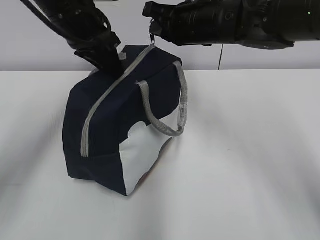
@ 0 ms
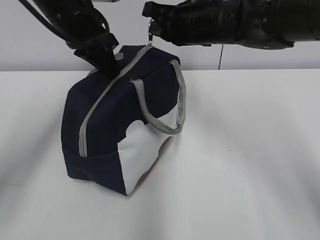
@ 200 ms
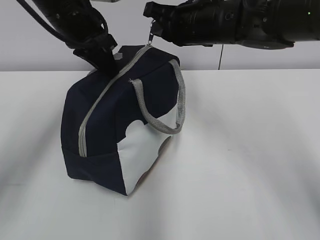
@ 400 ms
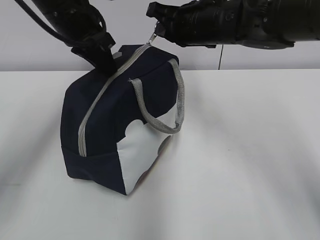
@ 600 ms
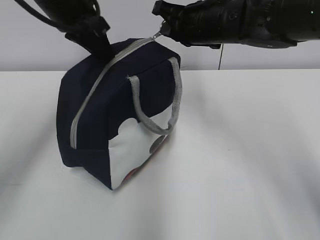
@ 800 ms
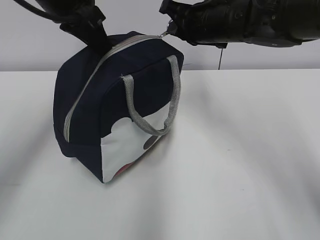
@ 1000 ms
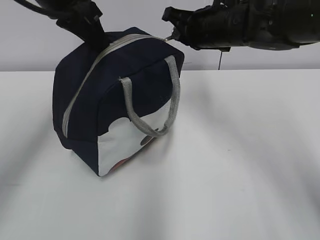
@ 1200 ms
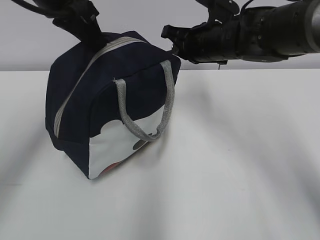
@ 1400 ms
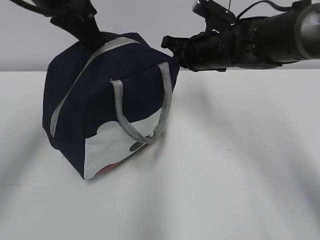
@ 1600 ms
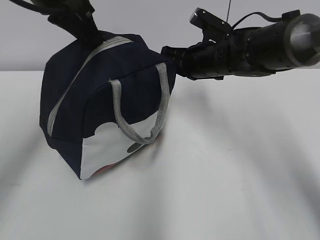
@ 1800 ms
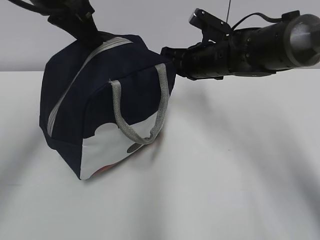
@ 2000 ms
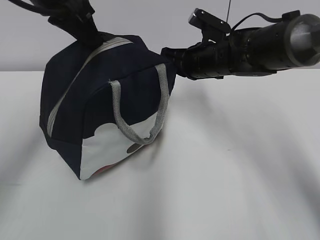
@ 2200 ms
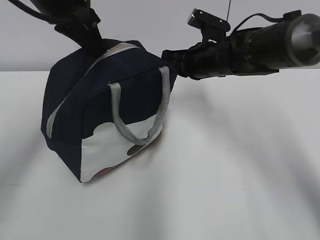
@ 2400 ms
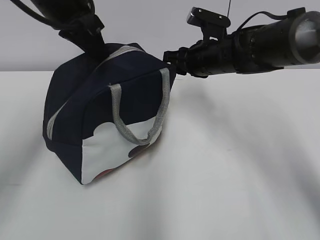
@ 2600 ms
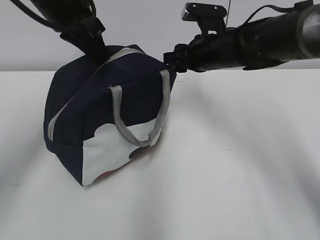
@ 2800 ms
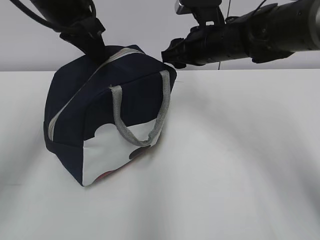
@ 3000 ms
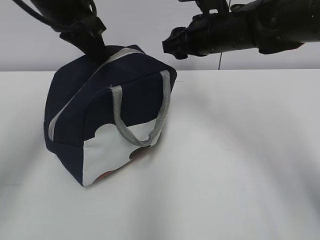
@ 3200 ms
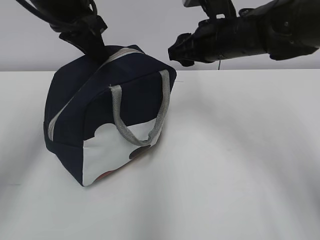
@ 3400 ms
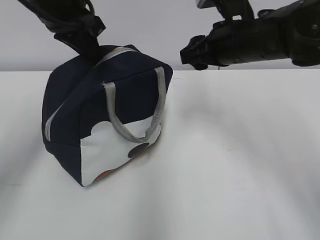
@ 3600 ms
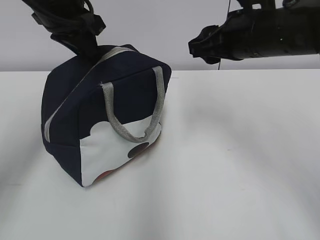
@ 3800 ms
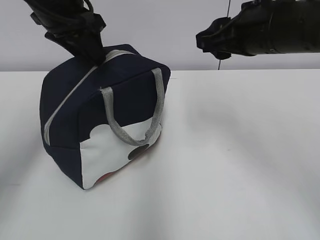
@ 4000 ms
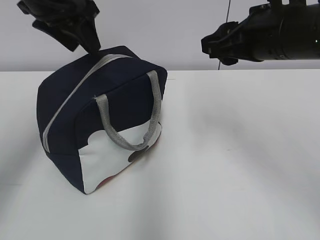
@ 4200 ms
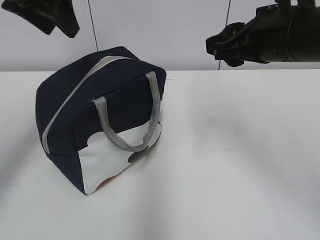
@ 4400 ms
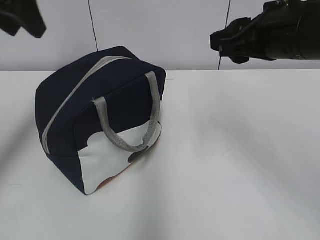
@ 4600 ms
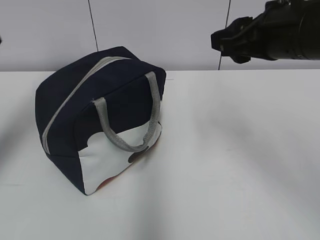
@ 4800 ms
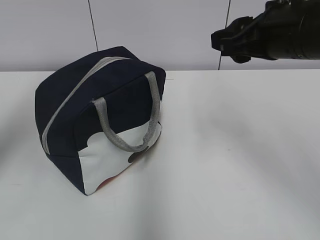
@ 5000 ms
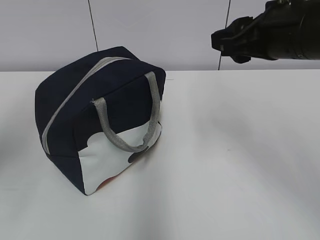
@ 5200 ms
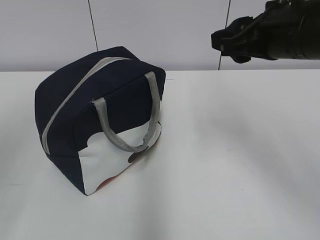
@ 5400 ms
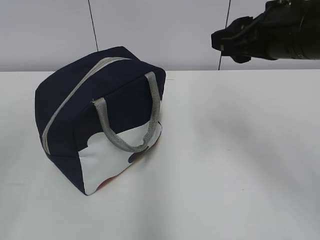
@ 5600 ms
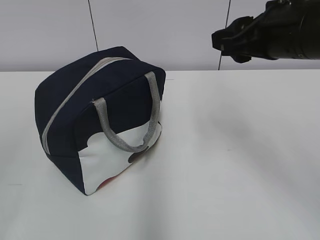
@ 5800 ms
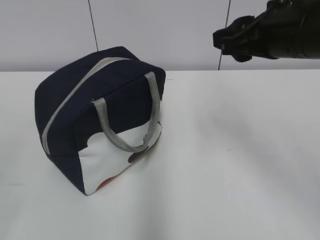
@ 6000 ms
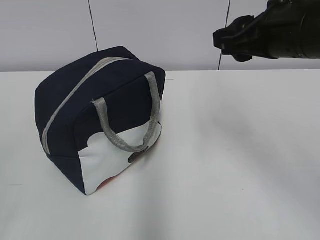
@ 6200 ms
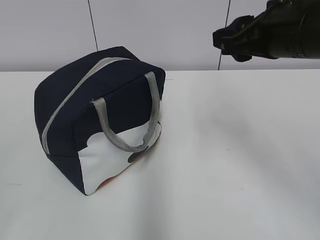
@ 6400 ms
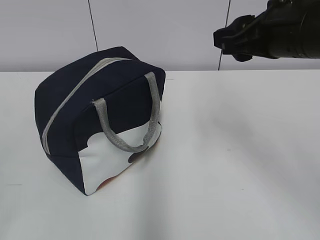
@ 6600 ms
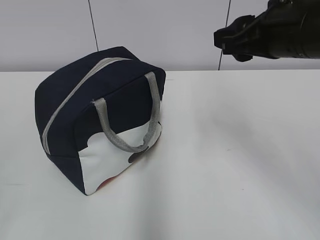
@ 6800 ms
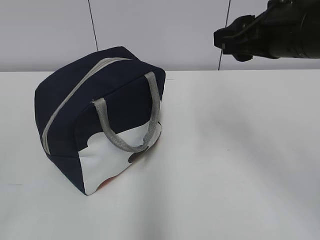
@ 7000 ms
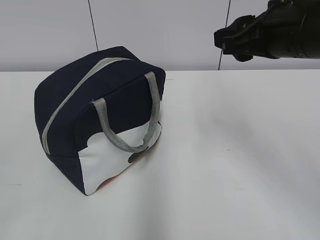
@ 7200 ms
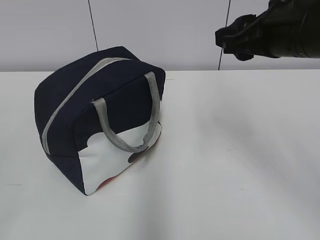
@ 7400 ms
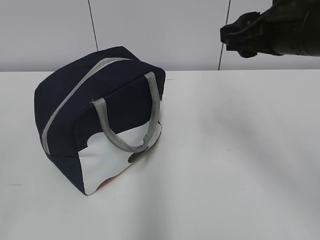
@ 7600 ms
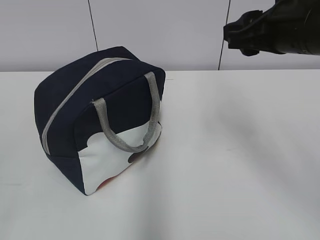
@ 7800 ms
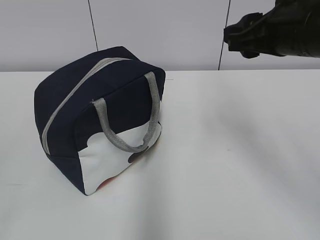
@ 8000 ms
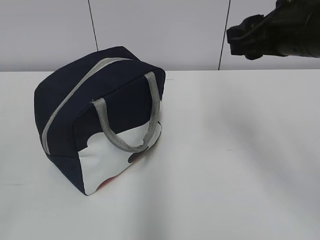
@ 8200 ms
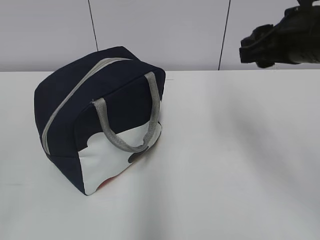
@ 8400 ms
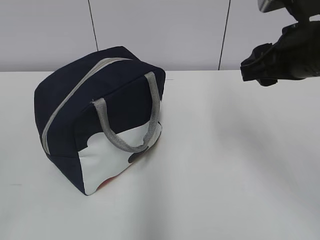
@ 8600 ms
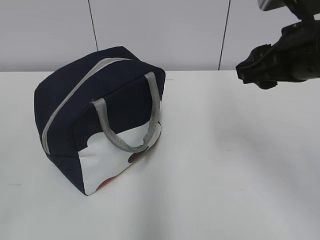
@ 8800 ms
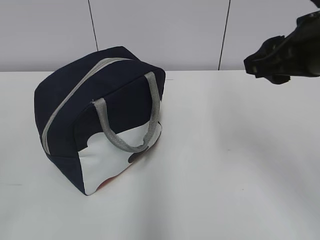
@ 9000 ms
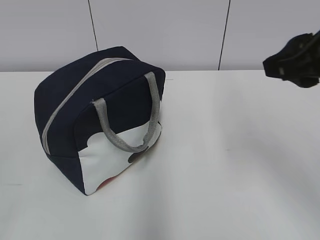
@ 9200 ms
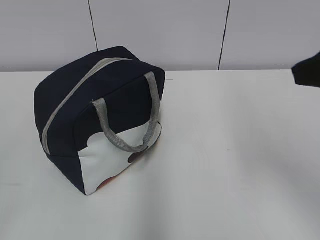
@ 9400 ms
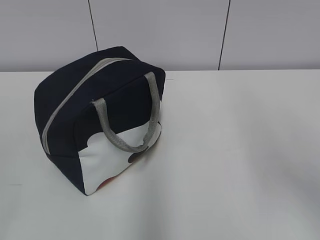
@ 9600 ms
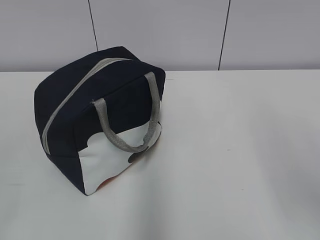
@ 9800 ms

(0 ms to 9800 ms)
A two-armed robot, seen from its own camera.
0 ms - 1400 ms: The right gripper changes place by about 5 cm. The left gripper is displaced upward by roughly 5 cm, and closes up.
1400 ms - 2800 ms: The right gripper opens up.
2800 ms - 4200 ms: The right gripper travels backward and upward by about 15 cm, while the left gripper opens its fingers.
4200 ms - 5600 ms: The left gripper heads backward and to the left, covering some 30 cm.
7000 ms - 8400 ms: The grippers make only small movements.
8400 ms - 9800 ms: The right gripper goes some 20 cm backward.

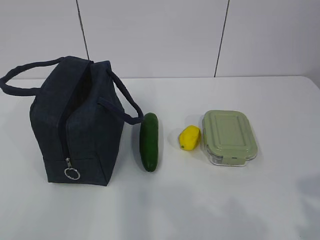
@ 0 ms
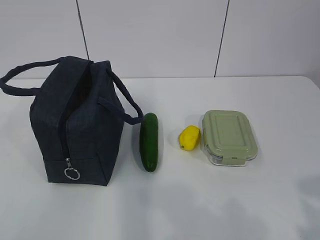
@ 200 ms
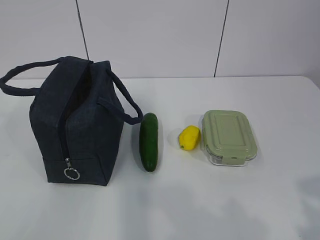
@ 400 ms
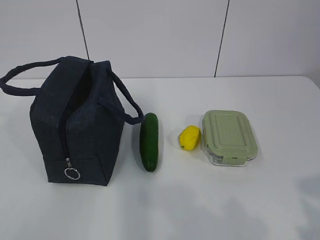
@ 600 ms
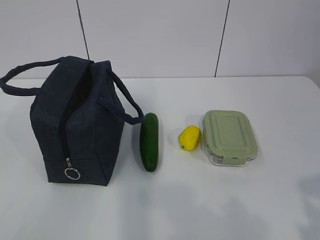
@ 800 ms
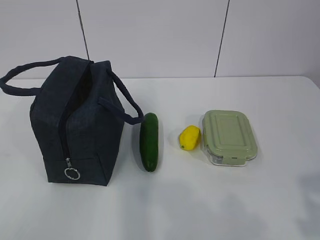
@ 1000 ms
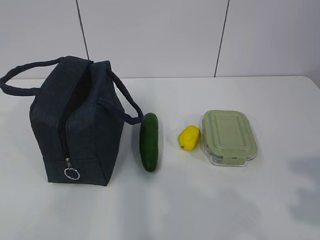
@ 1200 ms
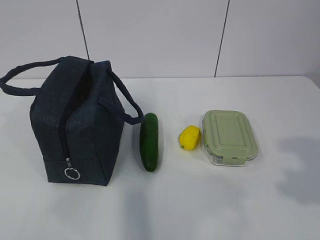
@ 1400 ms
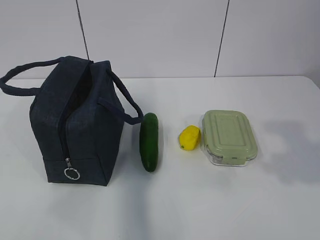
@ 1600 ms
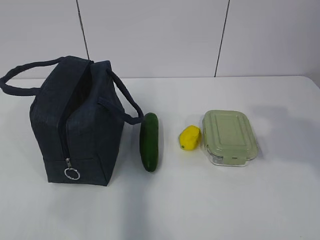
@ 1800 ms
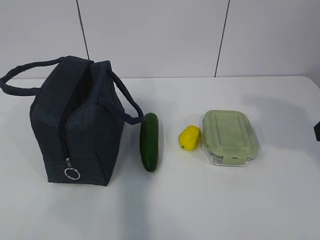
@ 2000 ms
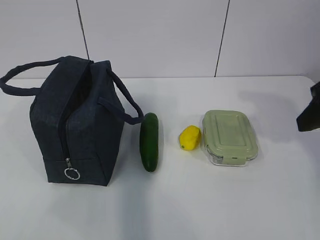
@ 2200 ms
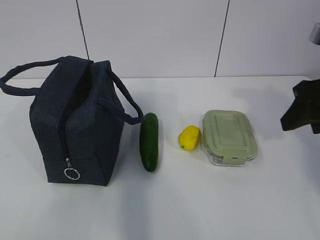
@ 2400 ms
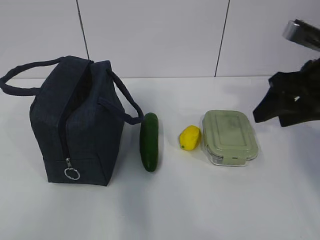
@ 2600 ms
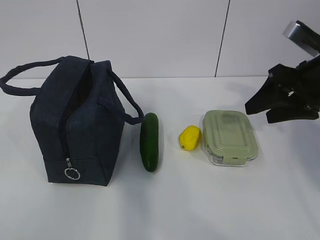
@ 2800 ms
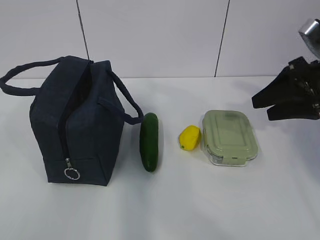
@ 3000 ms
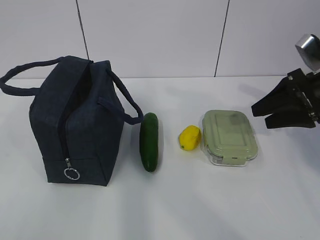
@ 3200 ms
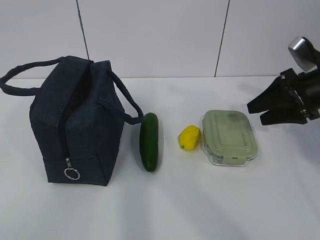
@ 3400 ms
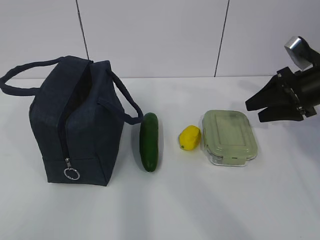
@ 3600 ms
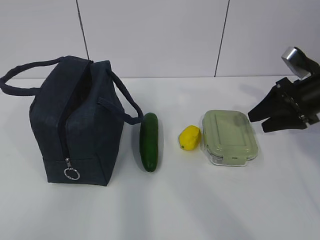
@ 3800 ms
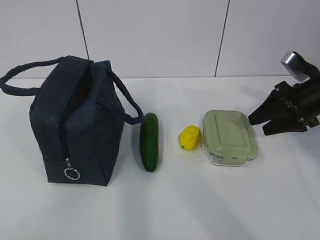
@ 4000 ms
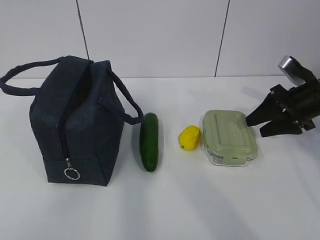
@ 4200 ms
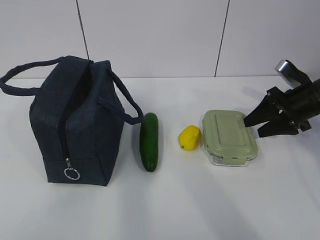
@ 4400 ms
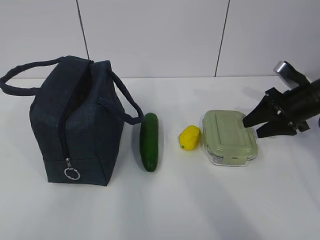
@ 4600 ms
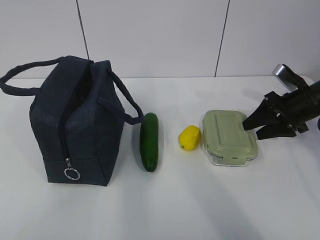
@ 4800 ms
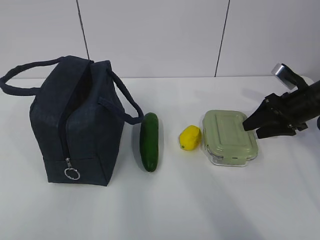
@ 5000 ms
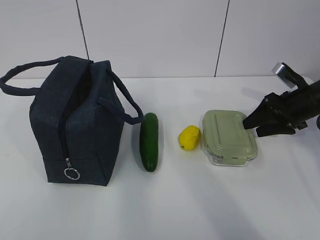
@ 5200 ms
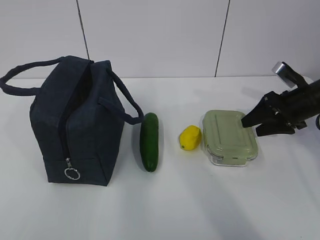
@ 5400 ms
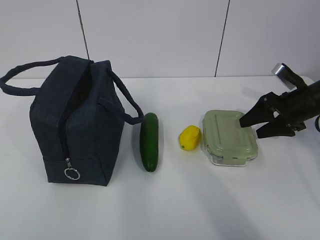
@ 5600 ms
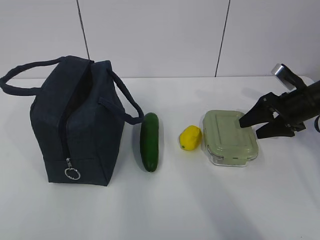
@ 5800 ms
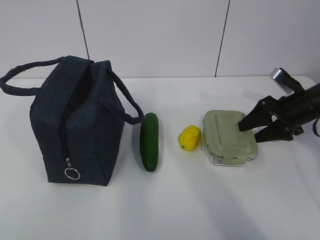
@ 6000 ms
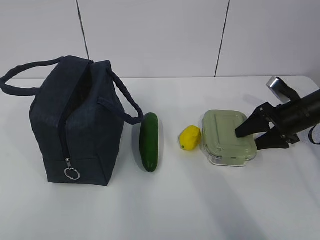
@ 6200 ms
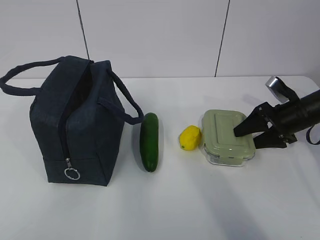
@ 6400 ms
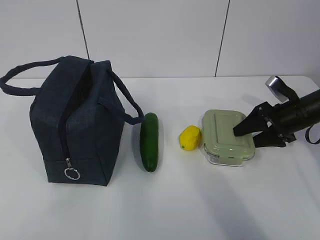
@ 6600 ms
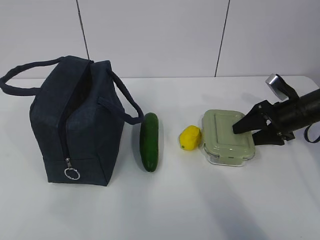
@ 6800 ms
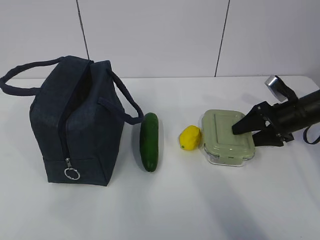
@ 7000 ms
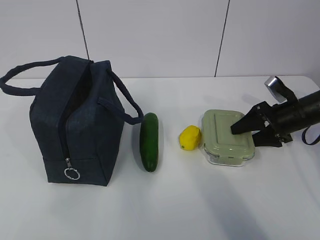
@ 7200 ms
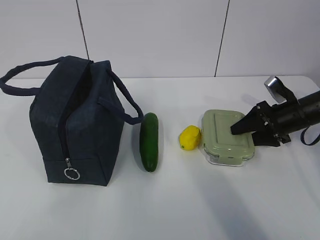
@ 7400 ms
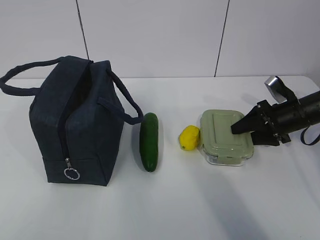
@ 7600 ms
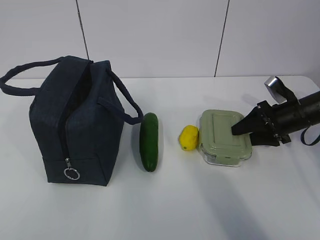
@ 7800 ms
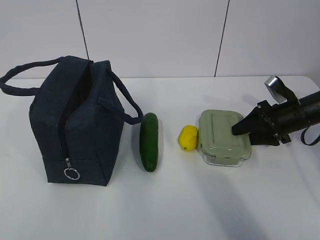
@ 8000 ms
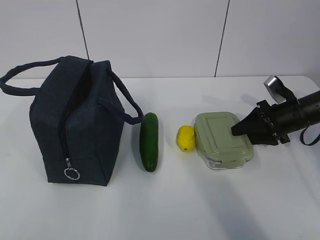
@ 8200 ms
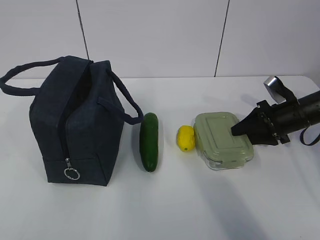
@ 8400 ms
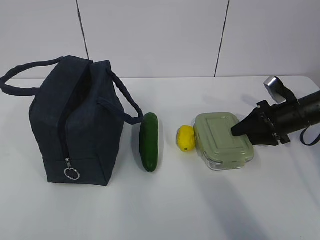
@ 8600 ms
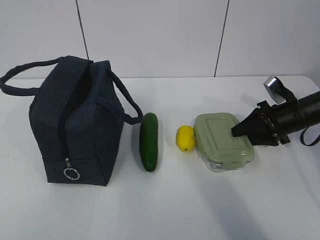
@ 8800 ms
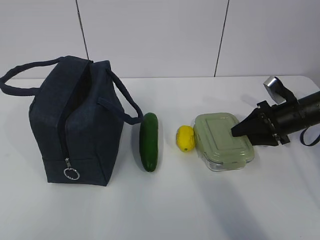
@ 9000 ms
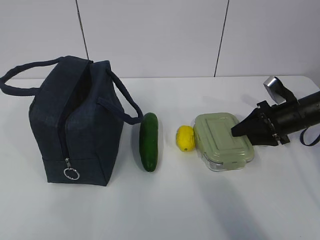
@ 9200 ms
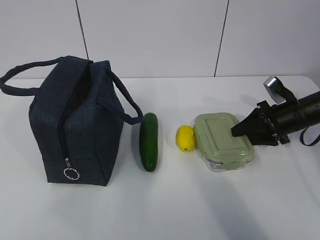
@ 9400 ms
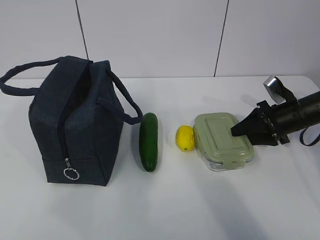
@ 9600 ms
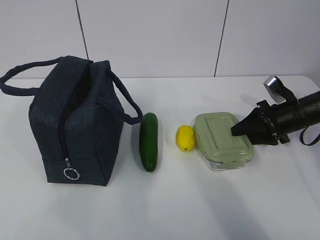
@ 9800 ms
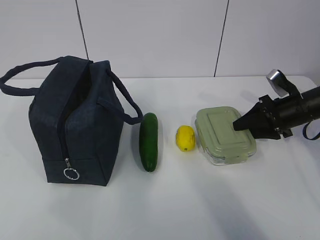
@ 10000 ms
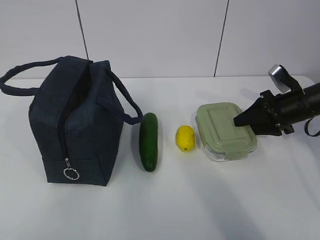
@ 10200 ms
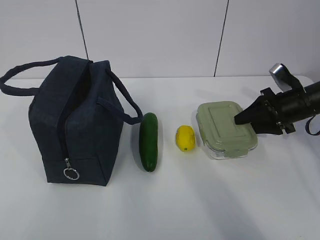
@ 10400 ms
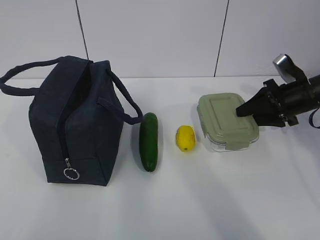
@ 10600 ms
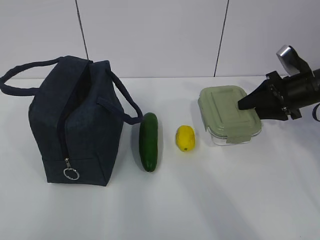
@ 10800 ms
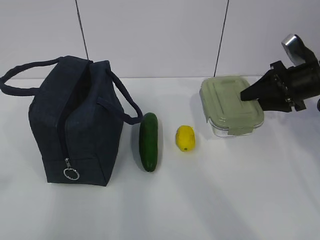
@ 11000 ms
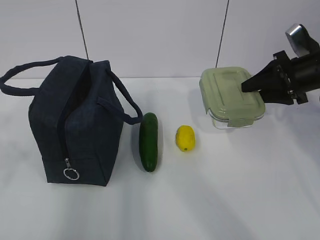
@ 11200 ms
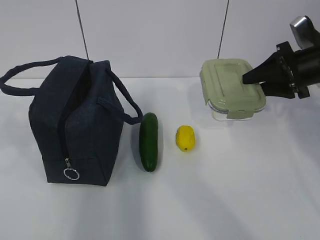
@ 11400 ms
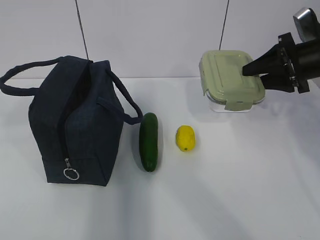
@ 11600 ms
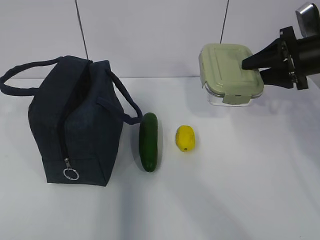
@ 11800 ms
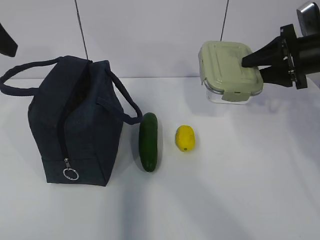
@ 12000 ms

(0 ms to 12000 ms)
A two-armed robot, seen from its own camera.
Step, 0 ms - 8000 ms: Grab the lunch box with your right hand.
1600 ms - 3000 ms: The right gripper goes approximately 20 cm forward.
3000 ms - 4400 ms: The right gripper moves downward and forward, approximately 10 cm.
4400 ms - 7600 ms: There are only small adjustments of the grippers.
7600 ms - 9000 ms: Neither gripper changes place.
9000 ms - 10400 ms: The grippers make only small movements.
10400 ms - 12000 ms: The right gripper heads upward, covering about 10 cm. The left gripper goes some 30 cm forward, and opens up.
